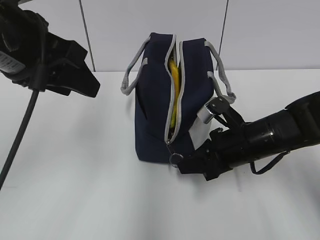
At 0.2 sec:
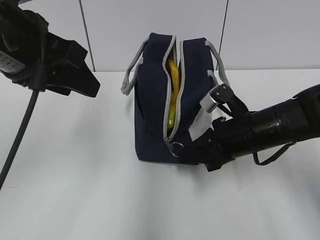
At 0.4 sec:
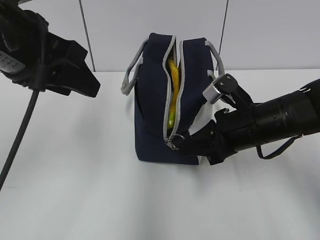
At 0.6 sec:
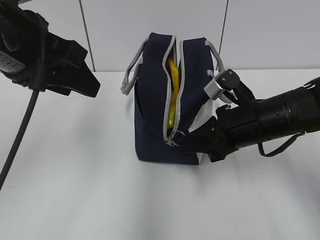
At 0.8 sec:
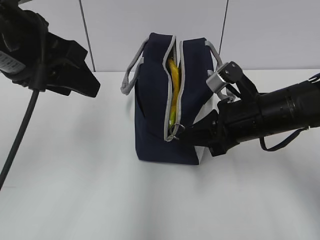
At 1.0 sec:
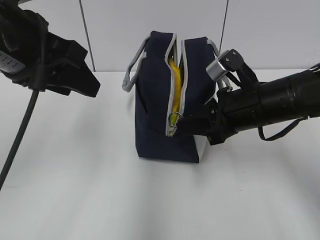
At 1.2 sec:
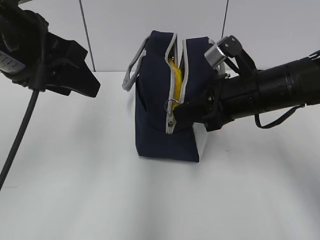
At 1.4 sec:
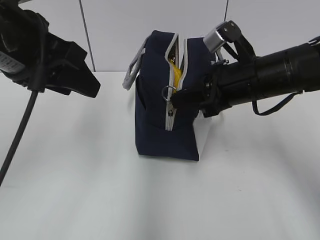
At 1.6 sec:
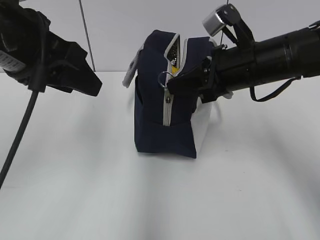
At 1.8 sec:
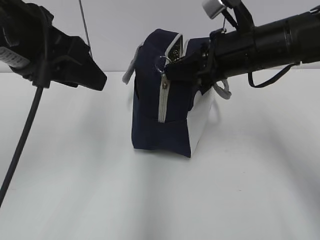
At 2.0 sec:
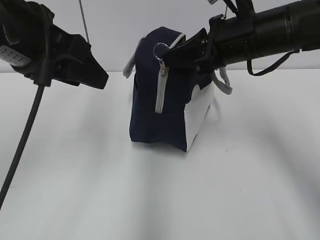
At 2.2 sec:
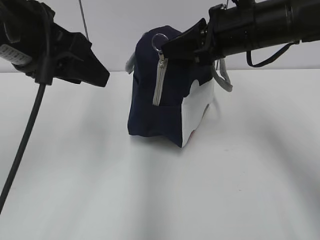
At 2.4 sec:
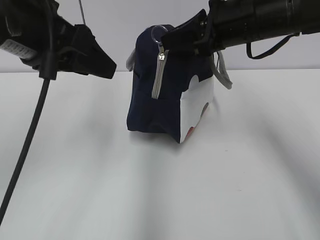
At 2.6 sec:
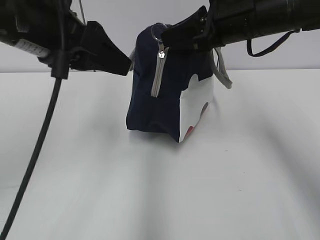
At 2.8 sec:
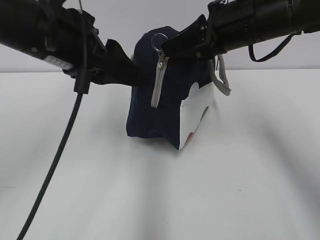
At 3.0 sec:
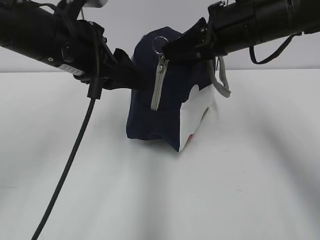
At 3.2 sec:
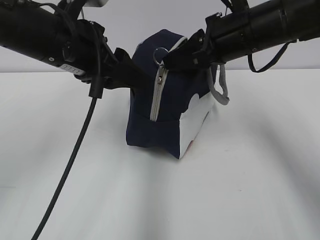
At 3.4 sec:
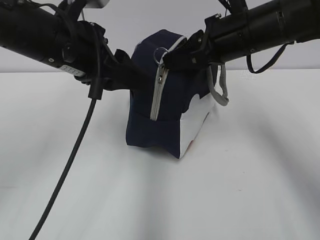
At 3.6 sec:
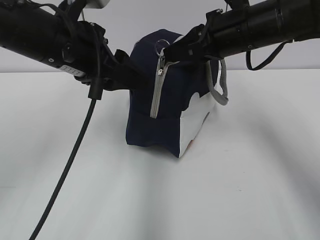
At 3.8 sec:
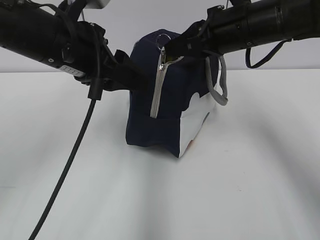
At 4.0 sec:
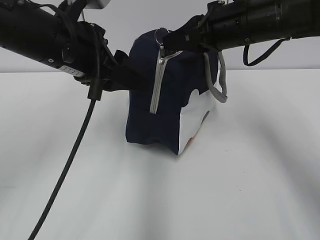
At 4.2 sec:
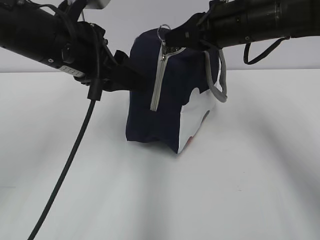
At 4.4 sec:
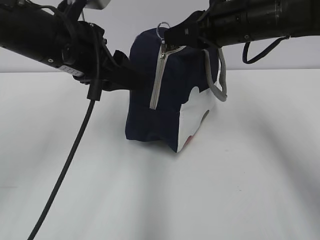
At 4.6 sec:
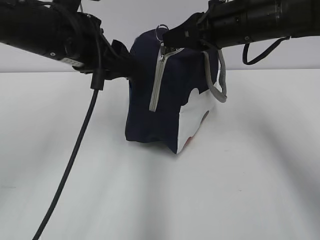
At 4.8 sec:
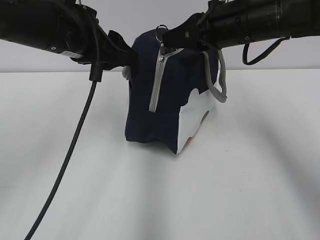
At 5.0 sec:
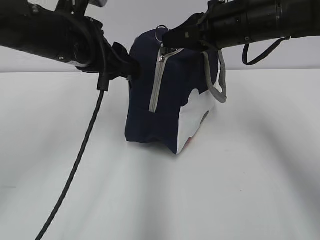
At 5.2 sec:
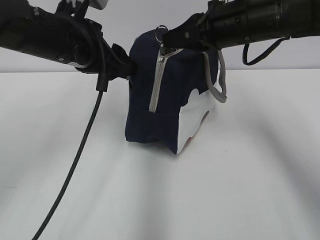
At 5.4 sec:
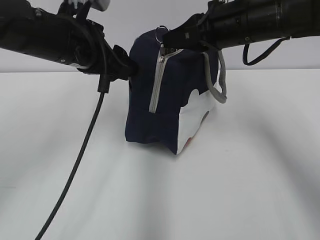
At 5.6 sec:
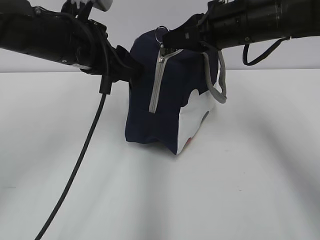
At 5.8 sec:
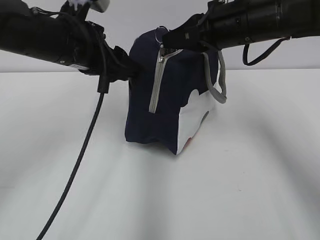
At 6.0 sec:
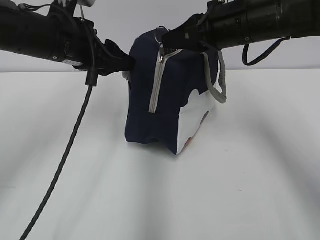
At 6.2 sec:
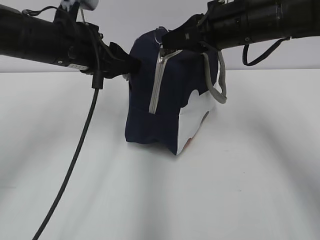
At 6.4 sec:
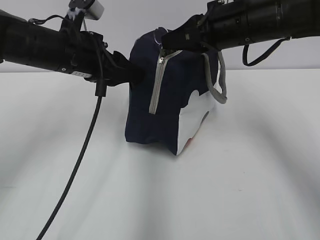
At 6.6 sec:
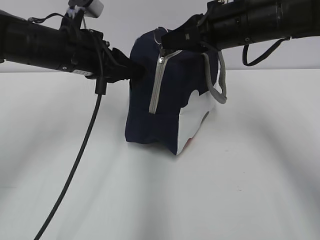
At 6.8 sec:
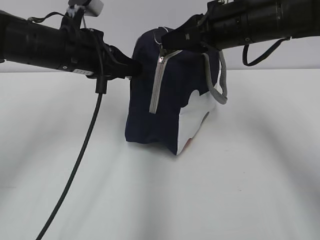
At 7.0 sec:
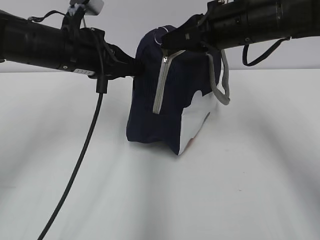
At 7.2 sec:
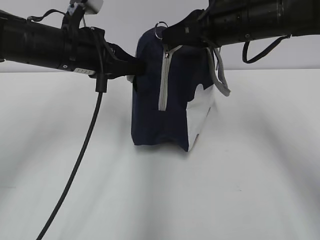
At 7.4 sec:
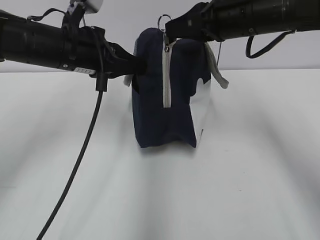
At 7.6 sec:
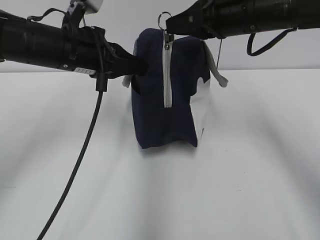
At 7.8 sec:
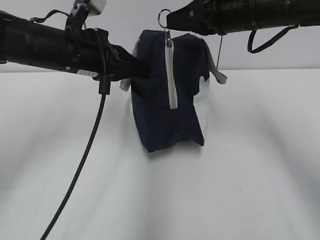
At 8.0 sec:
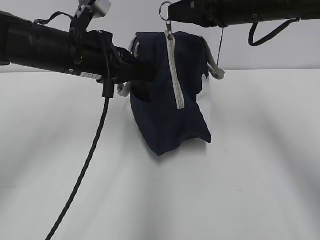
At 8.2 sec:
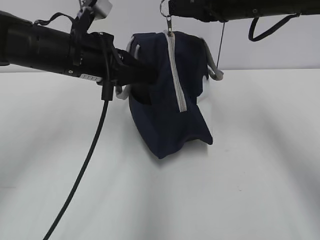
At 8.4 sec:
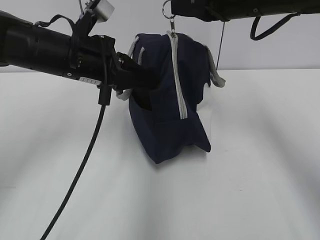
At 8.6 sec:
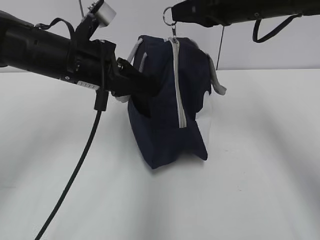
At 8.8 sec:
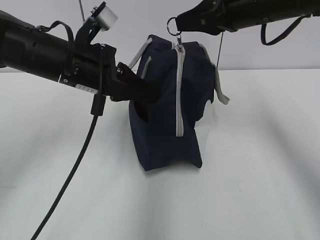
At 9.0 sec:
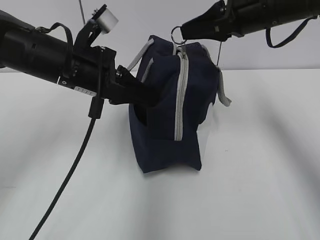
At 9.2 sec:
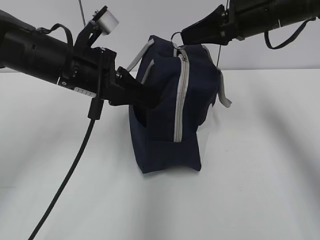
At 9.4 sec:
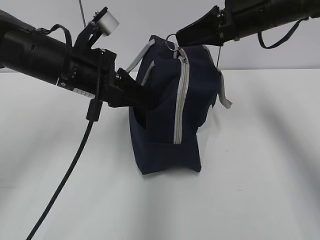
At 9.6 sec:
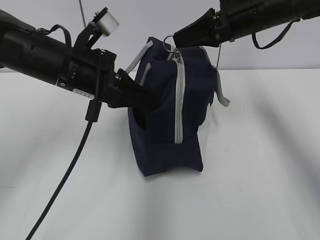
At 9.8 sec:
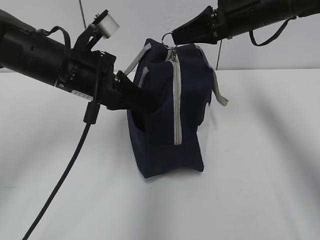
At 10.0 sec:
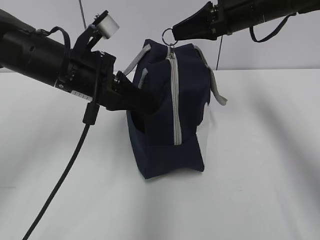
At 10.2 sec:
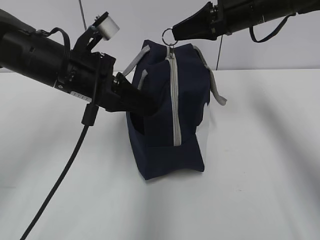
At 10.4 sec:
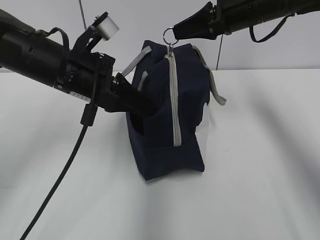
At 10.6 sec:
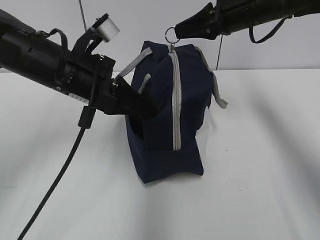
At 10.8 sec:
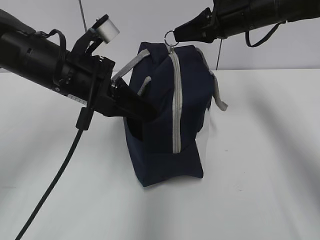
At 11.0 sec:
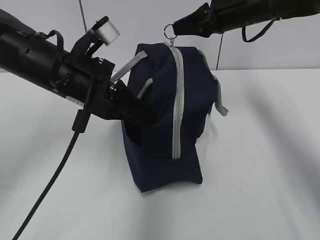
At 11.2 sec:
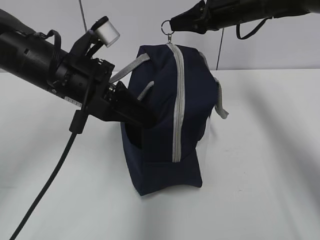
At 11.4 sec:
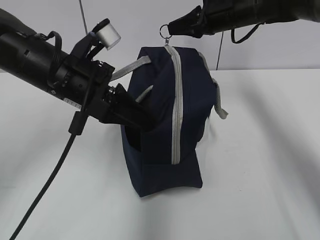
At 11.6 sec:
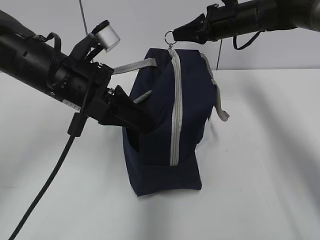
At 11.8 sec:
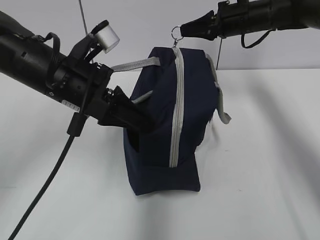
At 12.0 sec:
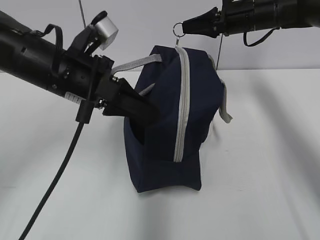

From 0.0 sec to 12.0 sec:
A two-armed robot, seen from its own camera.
From 0.0 sec to 1.6 sec: The right gripper goes some 15 cm upward.
From 1.6 sec to 3.0 sec: The right gripper heads upward, covering roughly 5 cm. The left gripper changes place by some 5 cm.
From 3.0 sec to 4.4 sec: The grippers move only a little.
From 4.4 sec to 6.0 sec: The left gripper changes place by approximately 5 cm.
From 6.0 sec to 7.6 sec: The left gripper closes its fingers.
From 9.0 sec to 10.4 sec: The grippers make only small movements.
From 10.4 sec to 12.0 sec: The right gripper heads forward, covering roughly 10 cm.

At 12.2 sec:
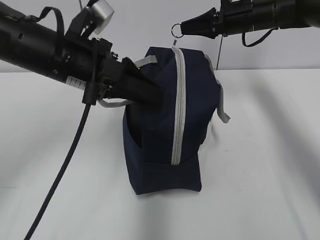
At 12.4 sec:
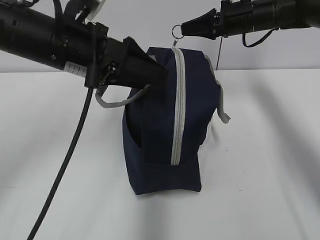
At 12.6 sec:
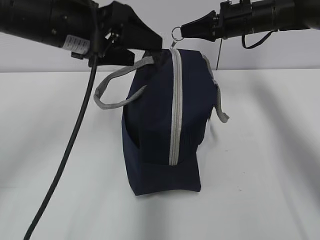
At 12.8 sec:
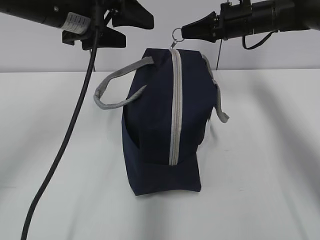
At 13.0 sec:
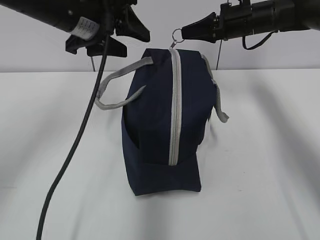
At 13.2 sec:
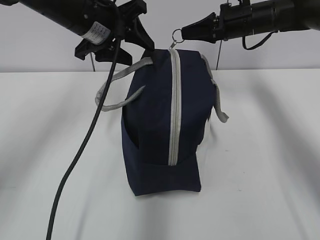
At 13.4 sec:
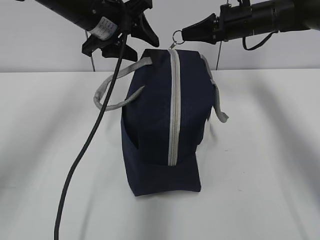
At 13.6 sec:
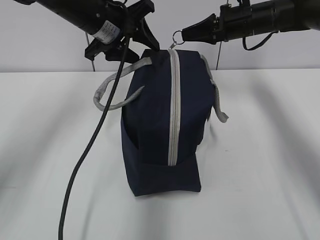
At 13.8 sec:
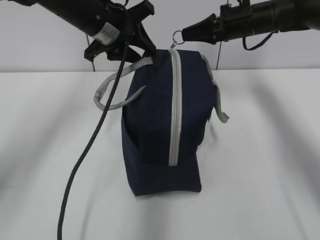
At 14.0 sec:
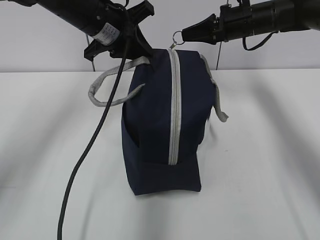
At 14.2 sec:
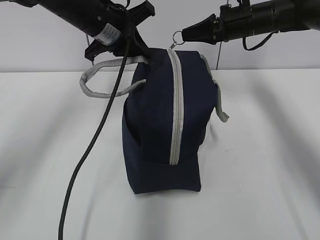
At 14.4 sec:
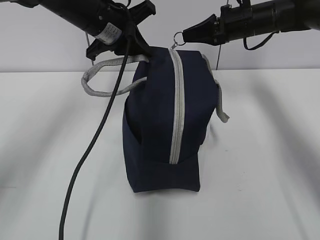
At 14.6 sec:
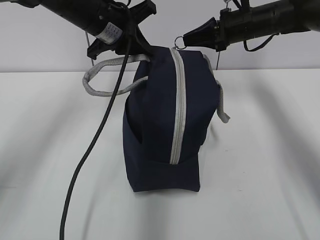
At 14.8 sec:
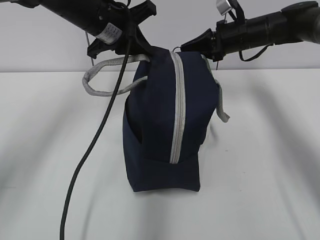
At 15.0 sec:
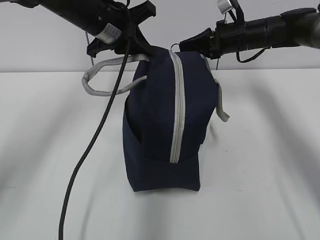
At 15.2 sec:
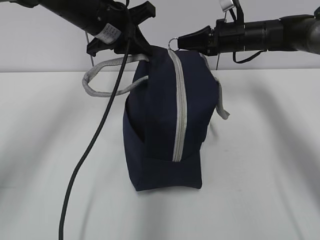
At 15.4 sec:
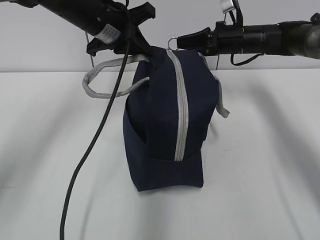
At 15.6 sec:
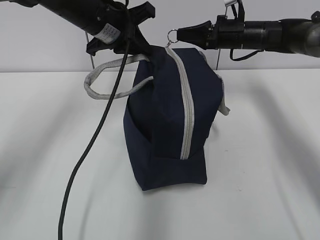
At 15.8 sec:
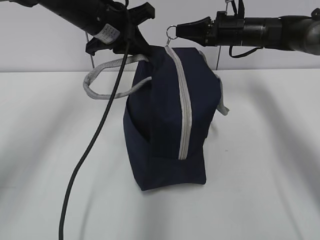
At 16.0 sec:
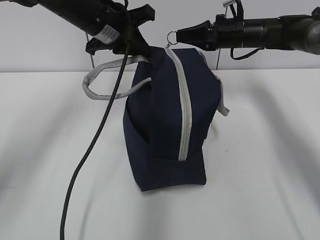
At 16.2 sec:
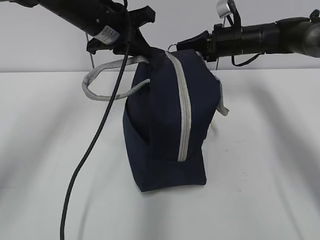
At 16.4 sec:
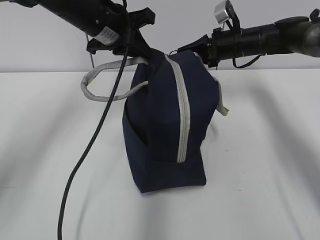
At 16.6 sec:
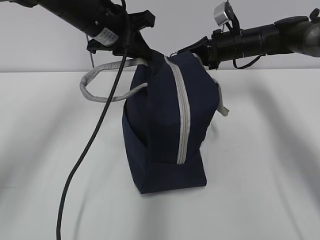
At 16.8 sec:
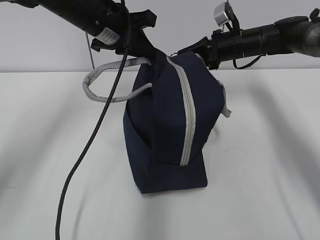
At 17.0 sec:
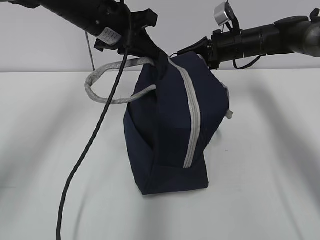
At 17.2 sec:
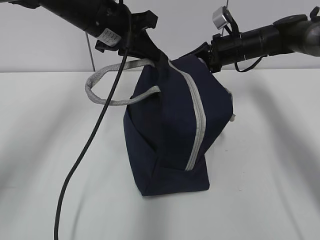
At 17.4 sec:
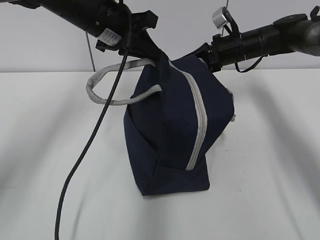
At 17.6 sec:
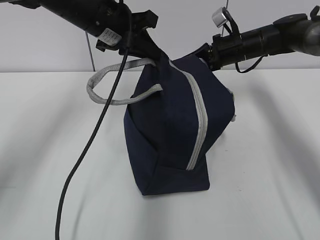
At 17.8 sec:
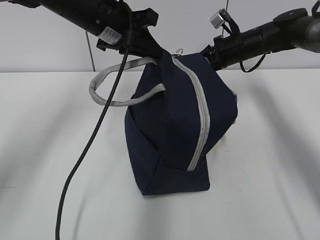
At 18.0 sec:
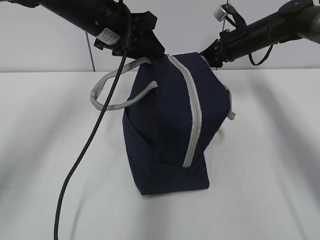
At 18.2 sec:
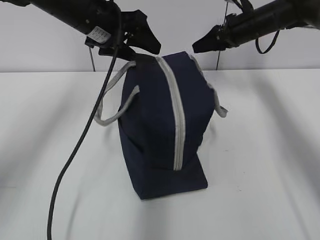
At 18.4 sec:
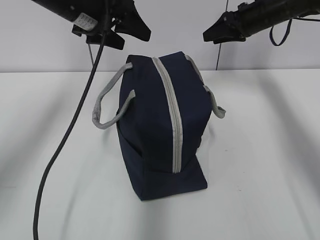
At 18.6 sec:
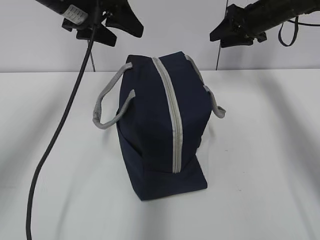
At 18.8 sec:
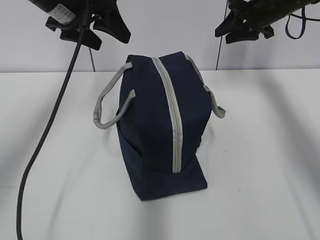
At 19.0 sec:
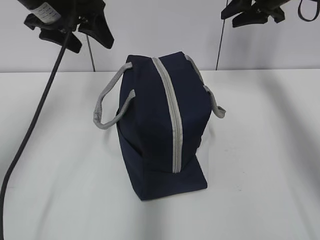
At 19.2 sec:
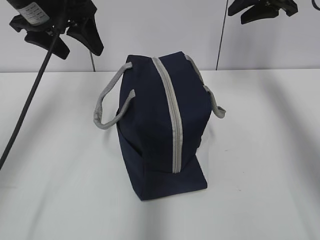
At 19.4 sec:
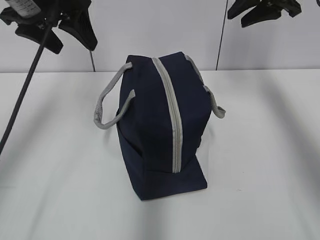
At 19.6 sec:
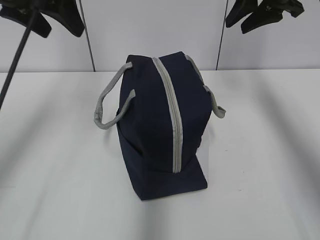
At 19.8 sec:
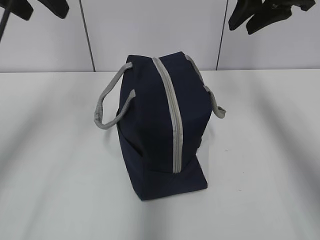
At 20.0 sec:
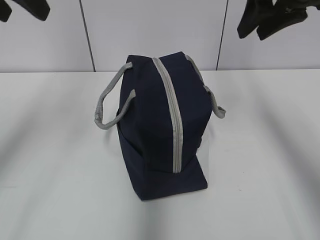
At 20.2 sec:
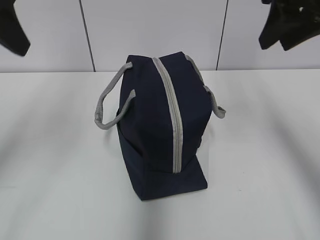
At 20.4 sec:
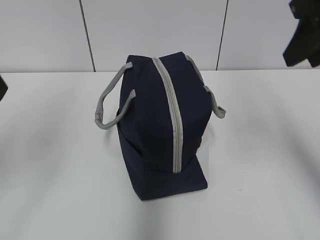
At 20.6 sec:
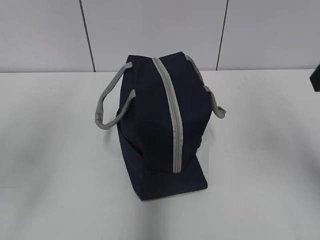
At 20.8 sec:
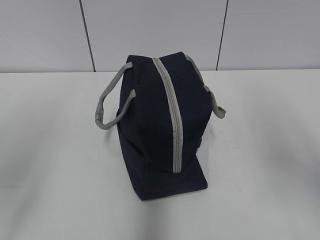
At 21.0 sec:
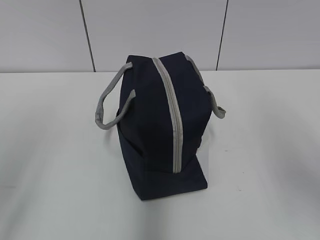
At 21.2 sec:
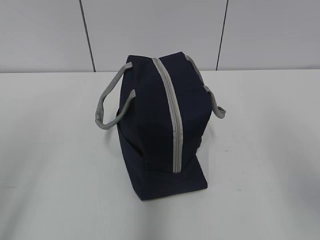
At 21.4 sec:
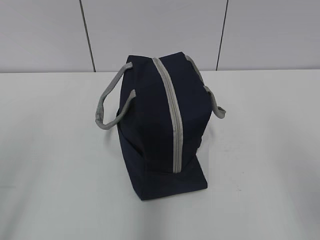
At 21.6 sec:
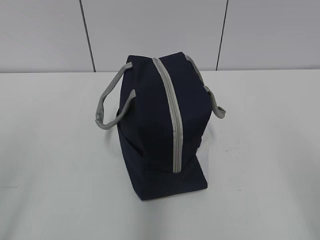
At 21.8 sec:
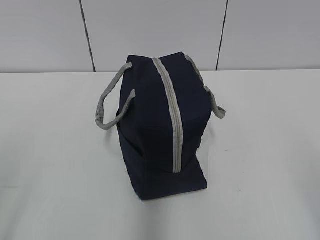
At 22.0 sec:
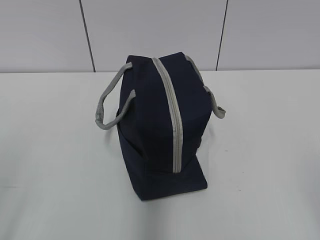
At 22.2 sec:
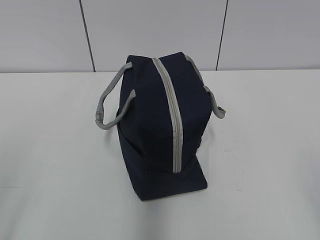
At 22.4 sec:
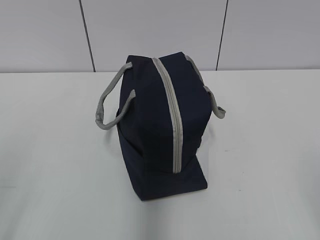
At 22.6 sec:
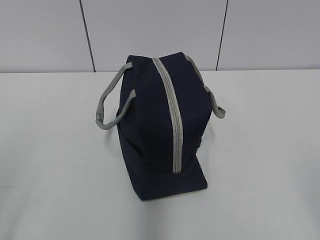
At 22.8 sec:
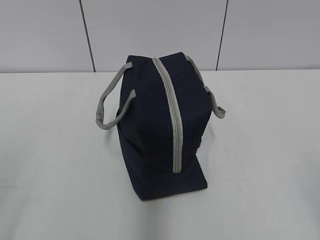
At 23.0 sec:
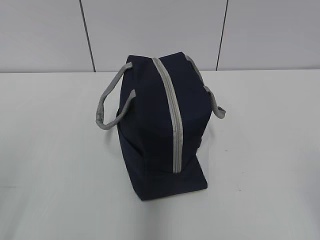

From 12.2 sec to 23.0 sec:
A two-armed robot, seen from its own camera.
From 12.2 sec to 13.8 sec: The left gripper heads forward, covering some 10 cm, and opens, then closes once more.
From 13.8 sec to 15.2 sec: The left gripper closes.
From 15.2 sec to 16.8 sec: The grippers make only small movements.
From 16.8 sec to 18.4 sec: The left gripper opens. The right gripper is displaced upward by roughly 5 cm, and opens up.
From 18.4 sec to 20.0 sec: The right gripper moves backward and upward, approximately 20 cm; the left gripper shifts about 20 cm backward, upward and to the left.
From 20.0 sec to 21.4 sec: The left gripper moves backward and downward, roughly 25 cm. Meanwhile the right gripper heads backward, covering about 25 cm.
